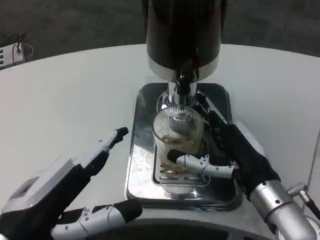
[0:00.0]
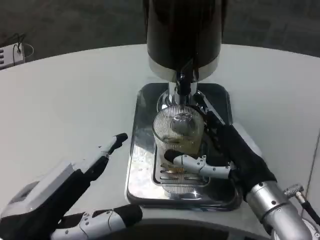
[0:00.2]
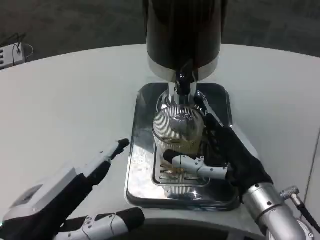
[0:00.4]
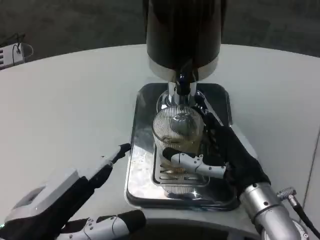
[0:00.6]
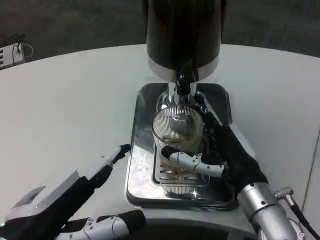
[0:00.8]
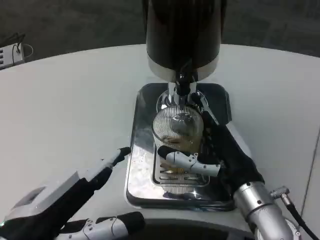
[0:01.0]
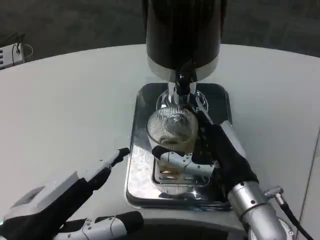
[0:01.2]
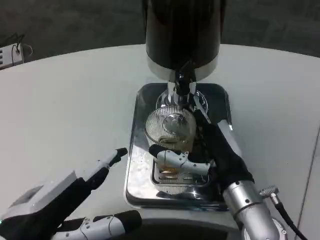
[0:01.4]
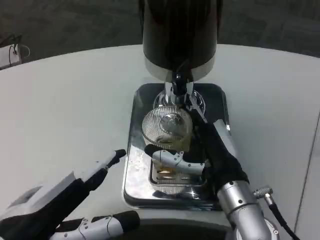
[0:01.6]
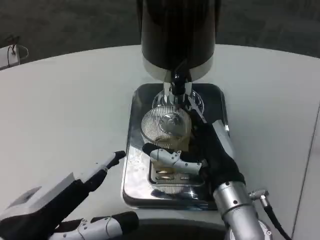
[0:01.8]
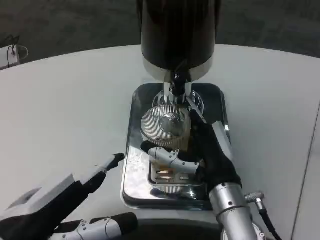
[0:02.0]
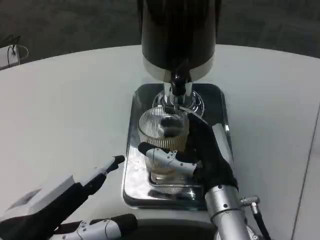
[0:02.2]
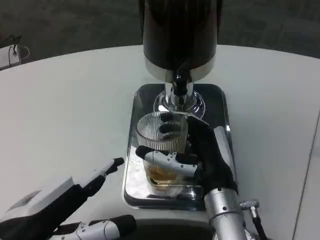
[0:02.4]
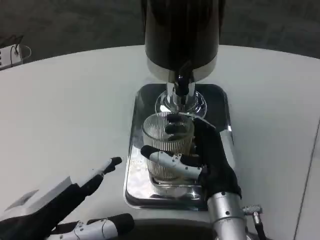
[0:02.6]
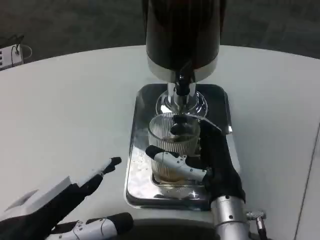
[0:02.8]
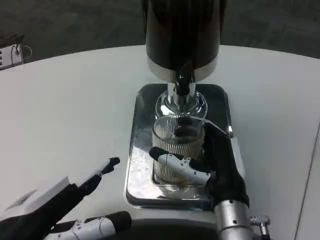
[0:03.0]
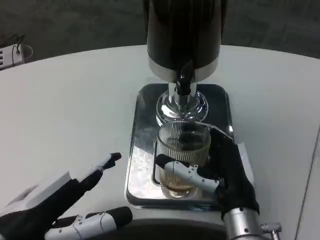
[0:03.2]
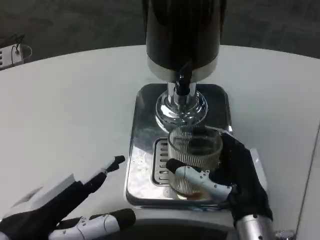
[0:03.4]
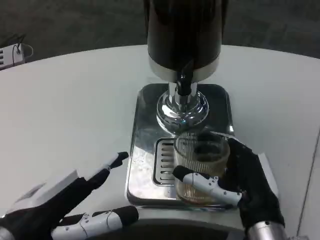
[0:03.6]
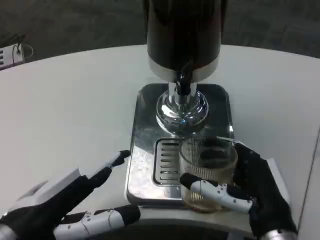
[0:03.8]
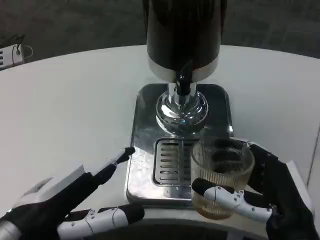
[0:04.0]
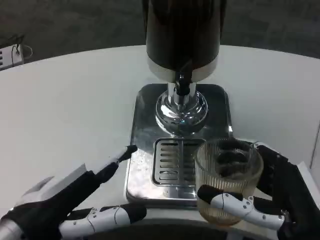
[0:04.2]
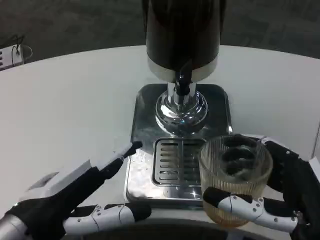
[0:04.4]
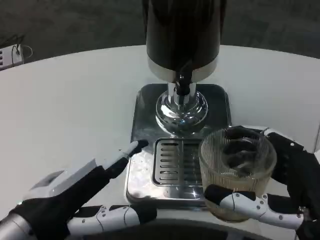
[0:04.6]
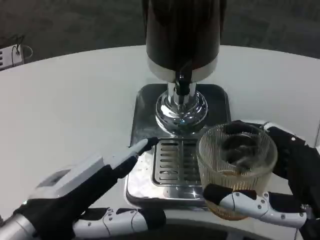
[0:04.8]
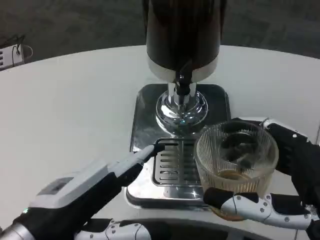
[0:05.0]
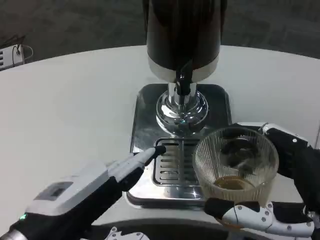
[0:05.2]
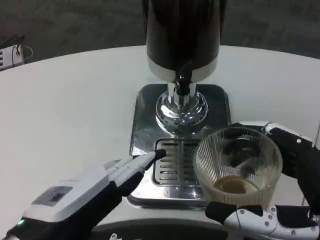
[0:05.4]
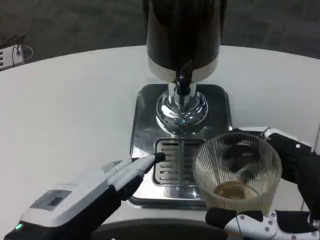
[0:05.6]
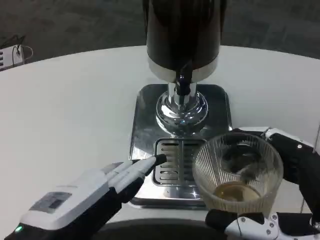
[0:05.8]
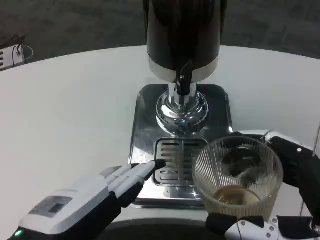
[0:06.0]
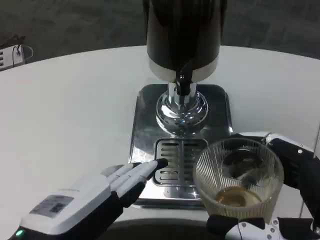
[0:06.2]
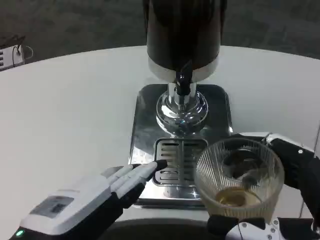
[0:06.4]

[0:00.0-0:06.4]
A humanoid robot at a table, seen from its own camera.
Task of the whole recording: Grasp the cup under the faucet to collect the drink, then remove the cup.
0:00.0 to 0:01.6: The right hand goes approximately 5 cm to the left.
0:03.2 to 0:04.8: The right hand moves backward, to the right and upward, some 15 cm.
